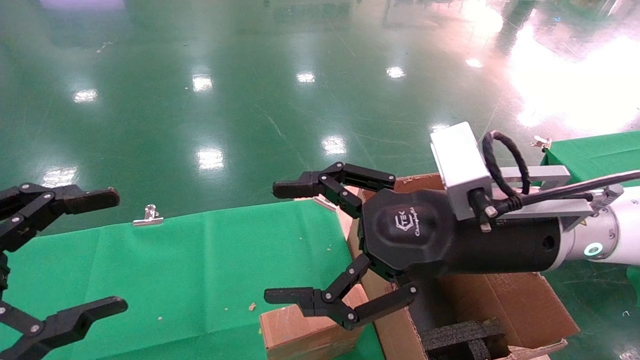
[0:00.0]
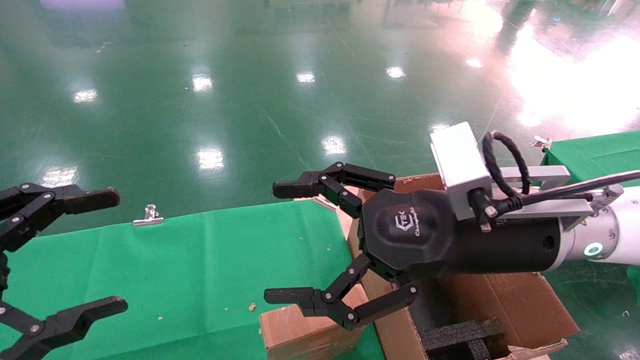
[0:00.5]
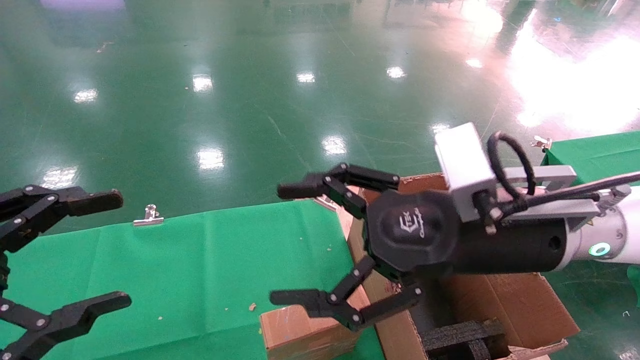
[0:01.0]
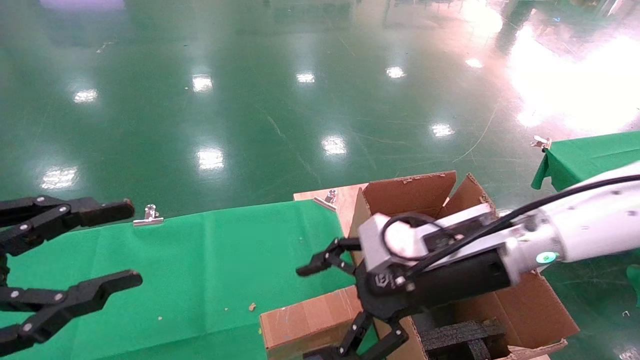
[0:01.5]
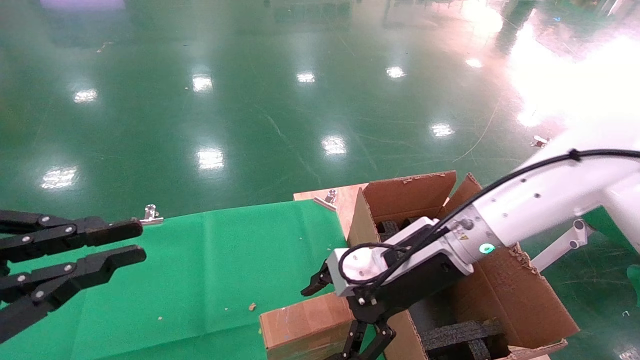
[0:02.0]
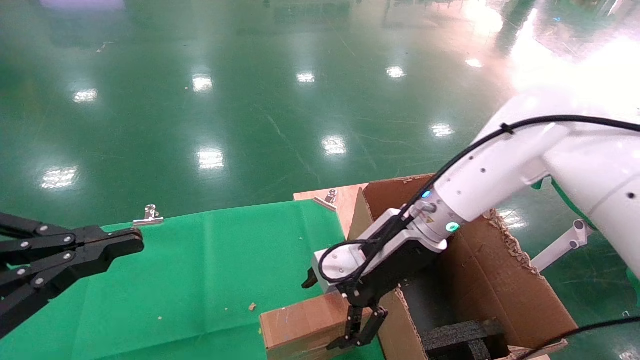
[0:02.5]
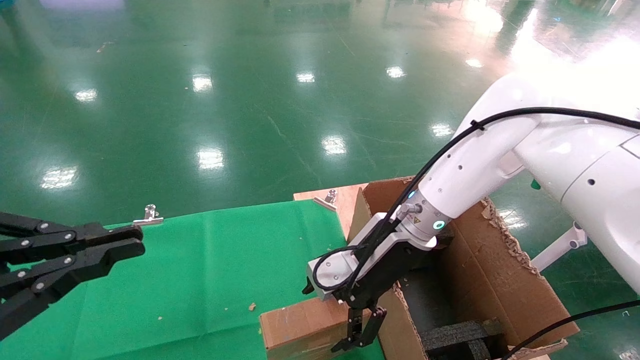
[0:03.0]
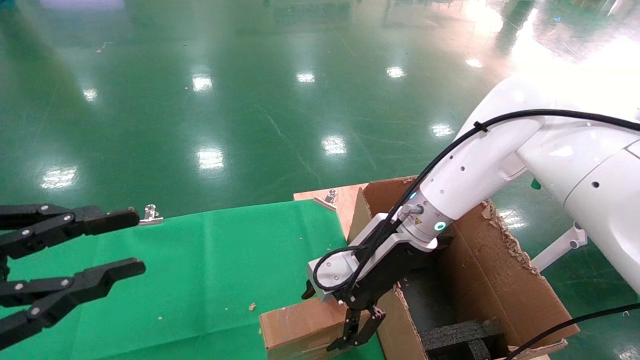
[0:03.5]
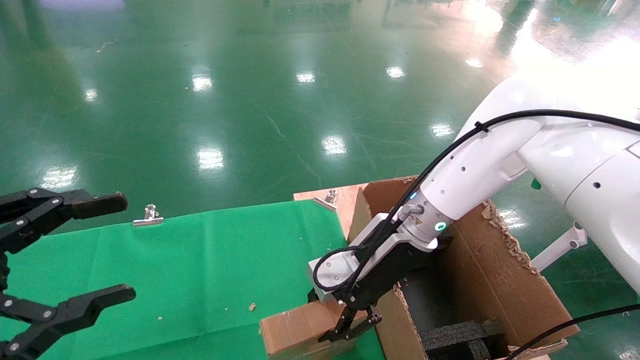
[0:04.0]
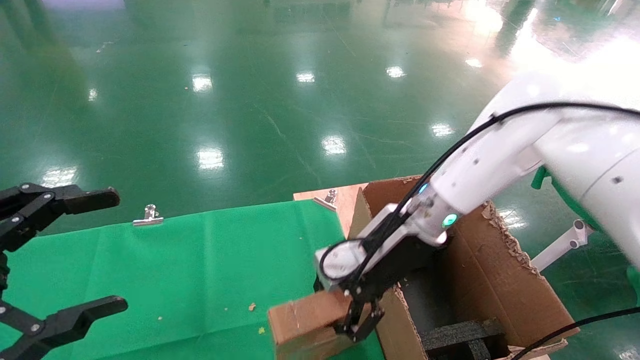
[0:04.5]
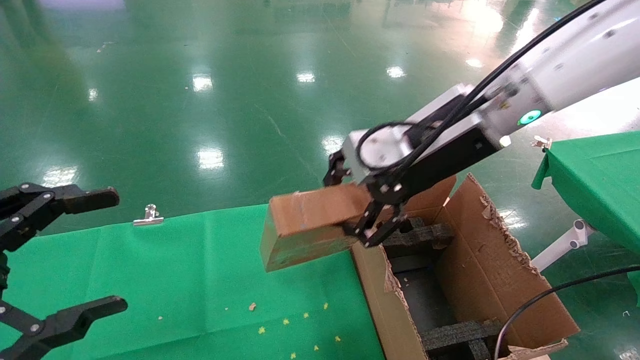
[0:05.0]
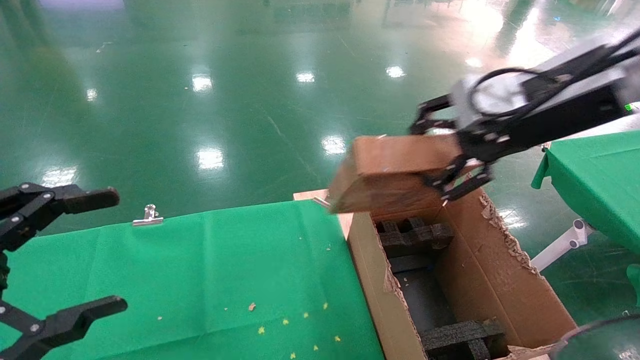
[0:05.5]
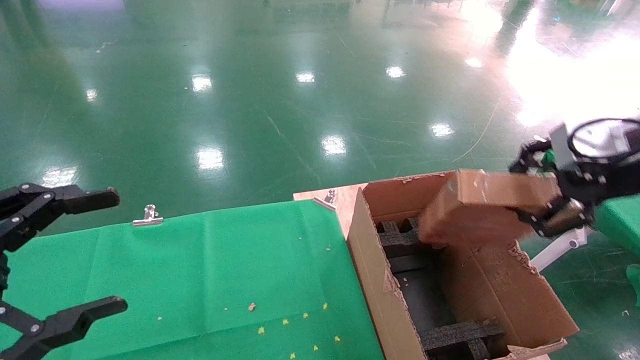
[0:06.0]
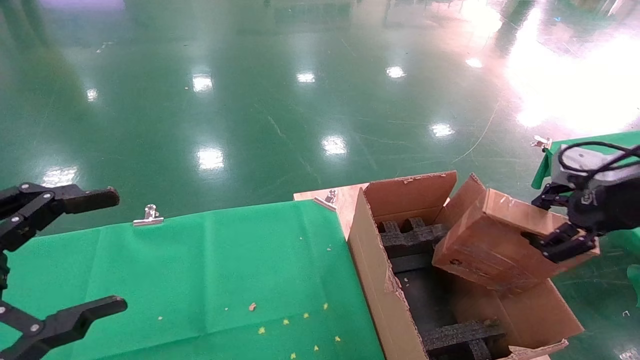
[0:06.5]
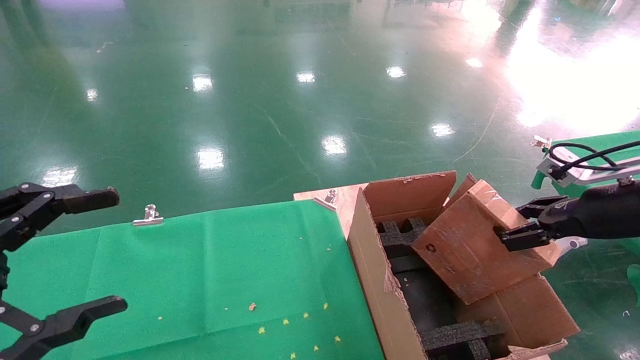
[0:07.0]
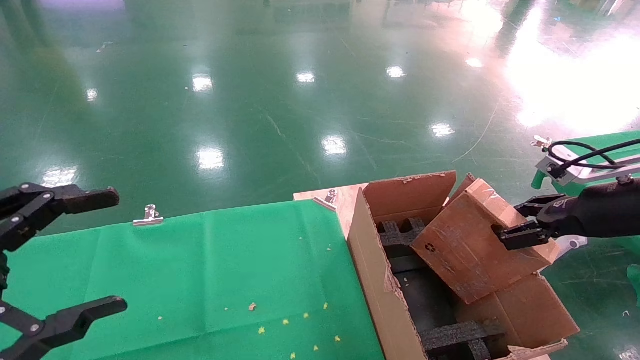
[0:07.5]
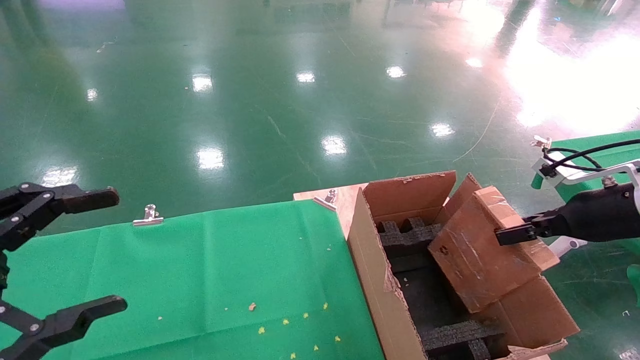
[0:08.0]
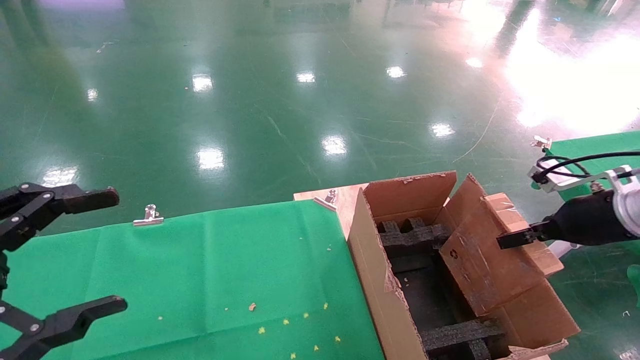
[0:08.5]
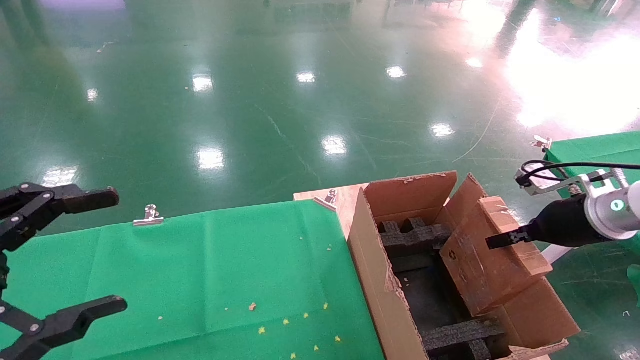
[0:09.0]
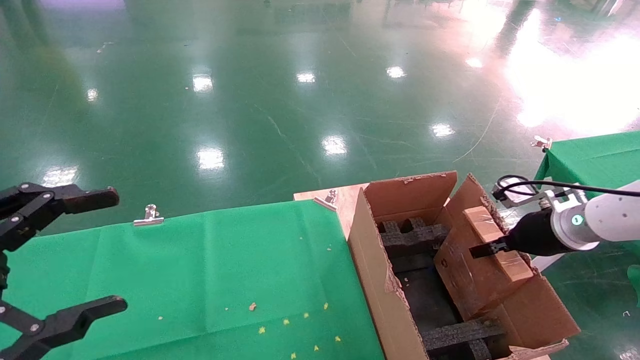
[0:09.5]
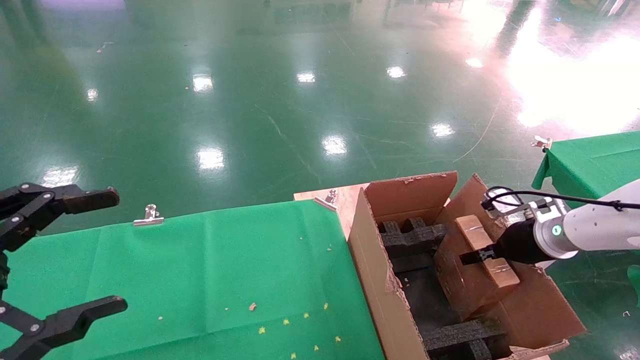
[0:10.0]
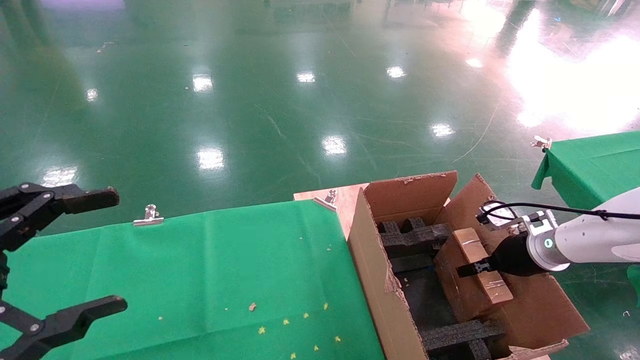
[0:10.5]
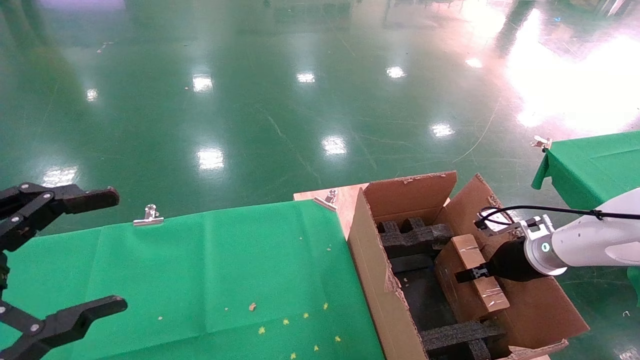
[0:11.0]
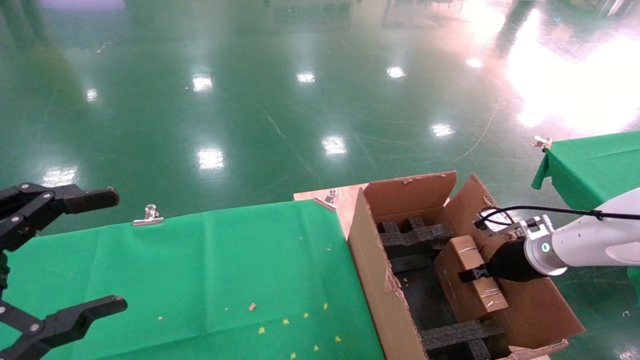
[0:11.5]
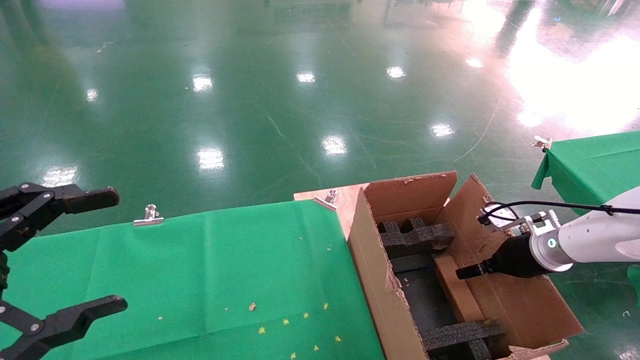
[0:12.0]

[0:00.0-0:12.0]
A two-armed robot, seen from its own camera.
Task of the whole recording: using a robotic arm to pick up a cardboard box and palace it the carton.
Step, 0:01.5 to 0:04.0: Pick up the mouse and the power cord paper box.
0:00.0 to 0:02.0: The left gripper closes up, while the right gripper is displaced forward and downward by approximately 10 cm.
0:02.0 to 0:04.0: The left gripper opens; the right gripper ends up approximately 5 cm from where it was, and closes.
0:04.0 to 0:06.0: The right gripper goes approximately 30 cm to the right, upward and backward, and closes its fingers.
0:06.0 to 0:08.0: The right gripper travels downward, to the right and forward by some 15 cm.
0:08.0 to 0:10.0: The right gripper heads downward and forward, covering about 15 cm.
0:10.0 to 0:12.0: The right gripper opens up.

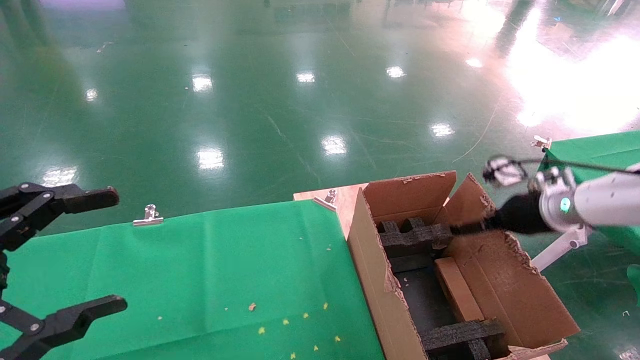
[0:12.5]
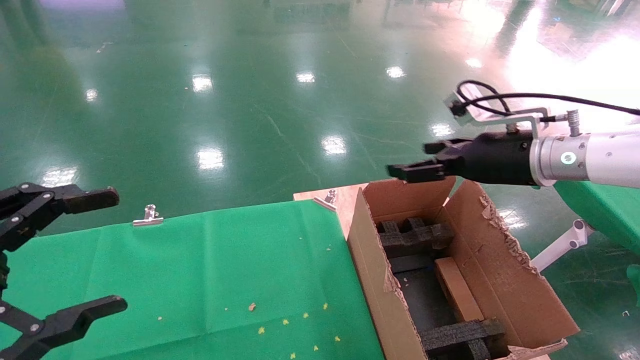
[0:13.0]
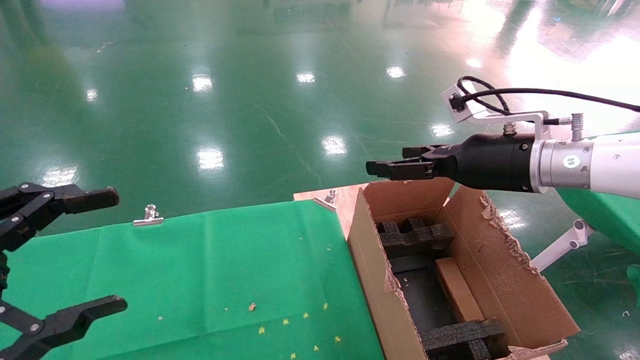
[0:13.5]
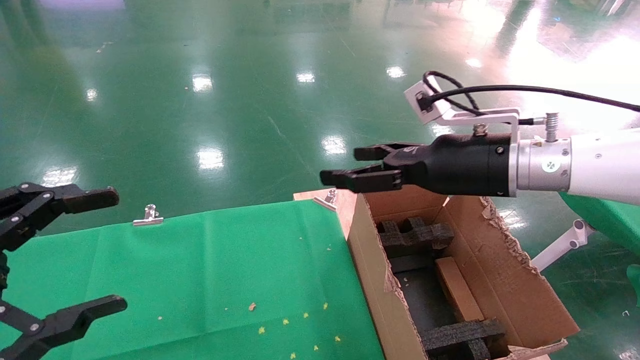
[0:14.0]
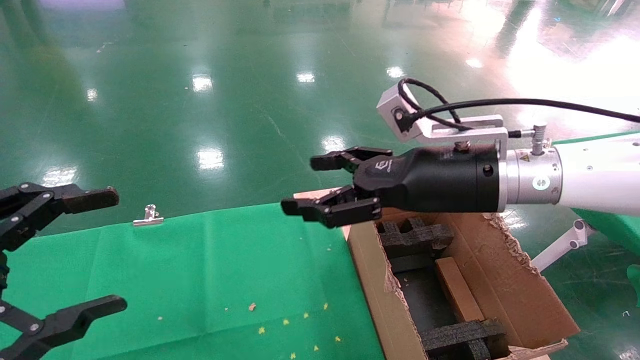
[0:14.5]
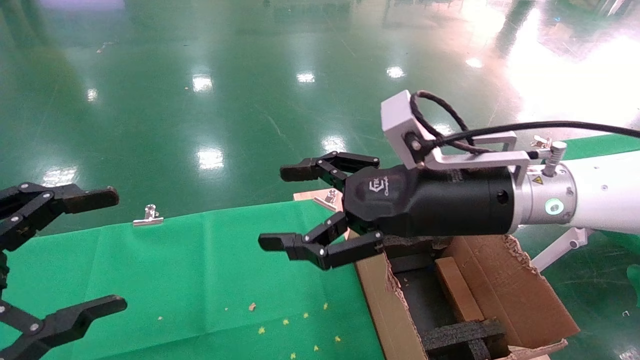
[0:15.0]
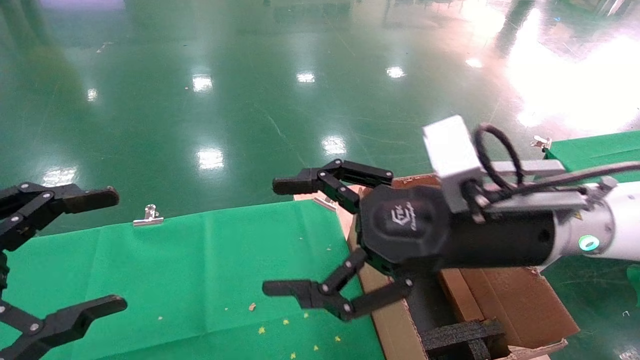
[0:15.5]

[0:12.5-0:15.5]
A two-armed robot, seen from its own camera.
Task of the whole recording: using a robotic arm to pick up a cardboard box and palace it the carton.
0:12.5 to 0:14.0: The right gripper heads to the left and upward, covering approximately 20 cm.
0:14.0 to 0:15.5: The right gripper is displaced backward and to the left by roughly 10 cm.
